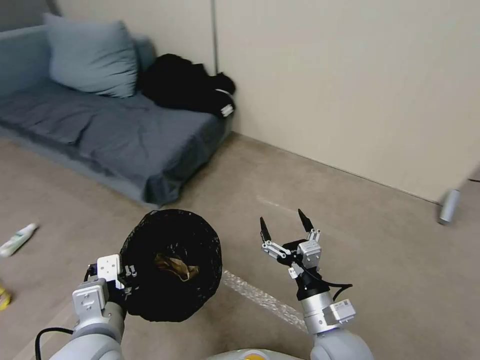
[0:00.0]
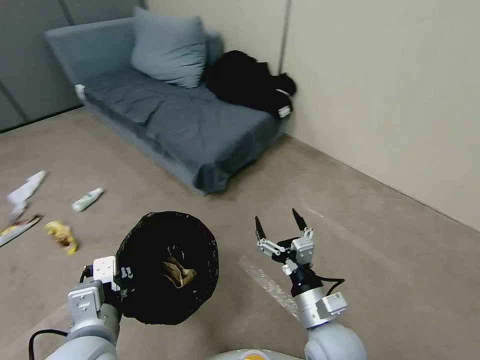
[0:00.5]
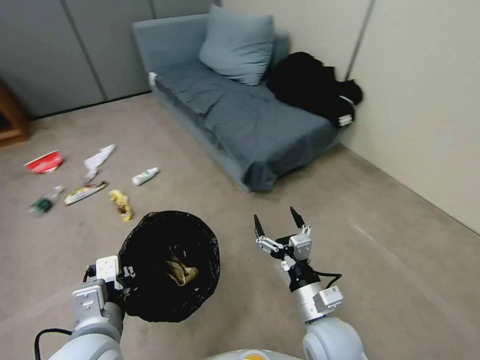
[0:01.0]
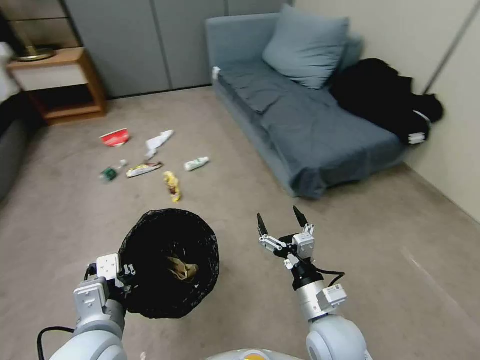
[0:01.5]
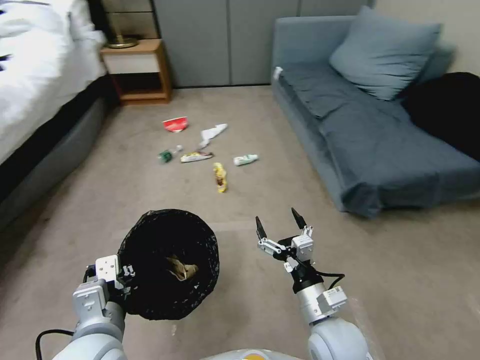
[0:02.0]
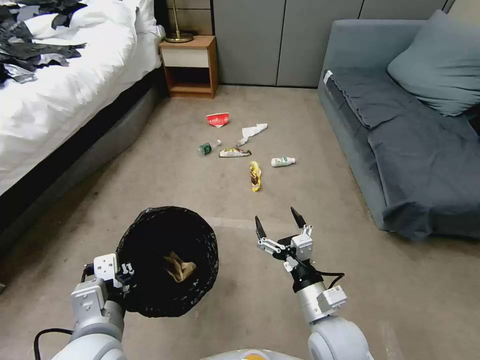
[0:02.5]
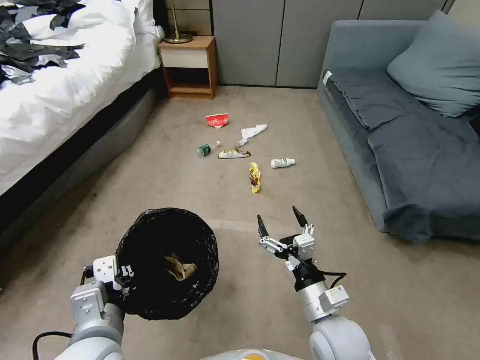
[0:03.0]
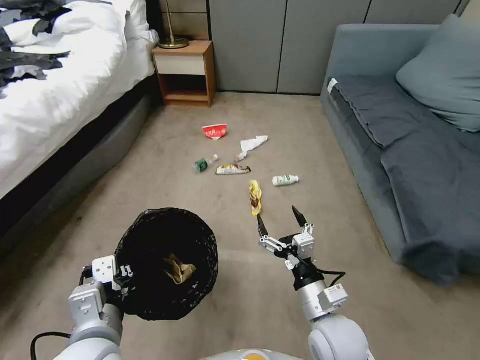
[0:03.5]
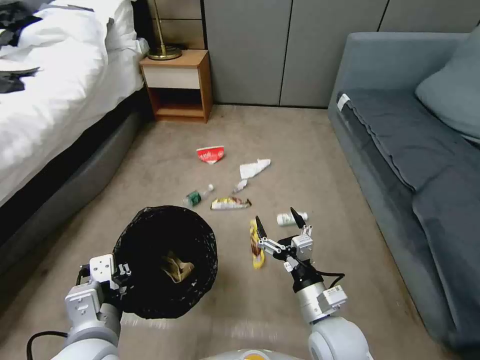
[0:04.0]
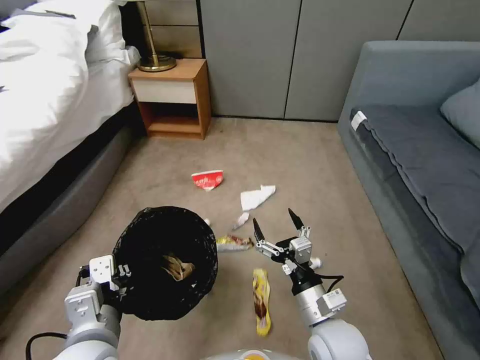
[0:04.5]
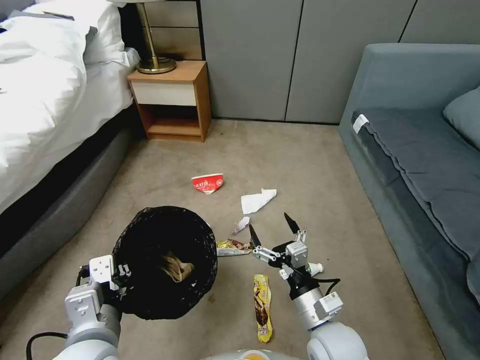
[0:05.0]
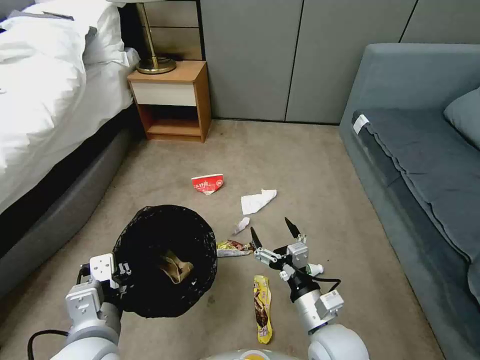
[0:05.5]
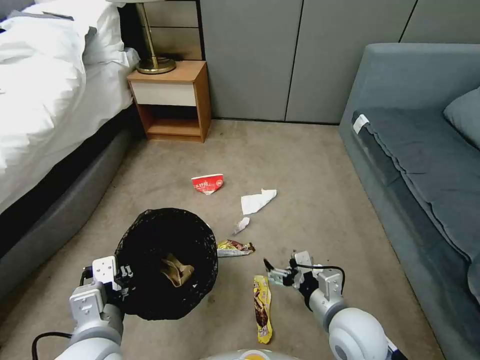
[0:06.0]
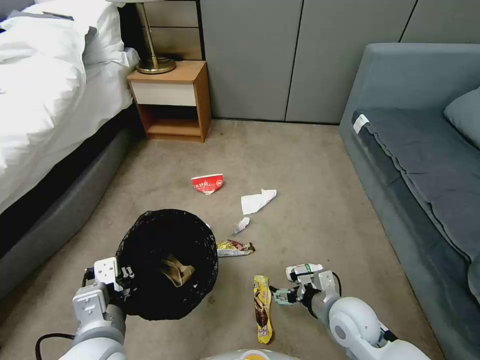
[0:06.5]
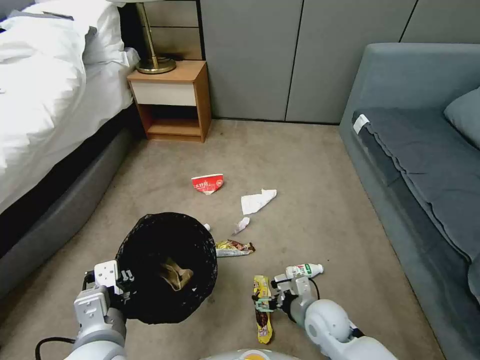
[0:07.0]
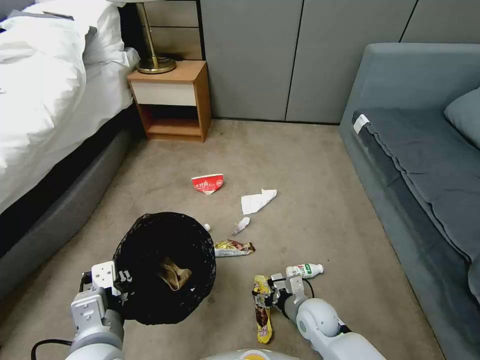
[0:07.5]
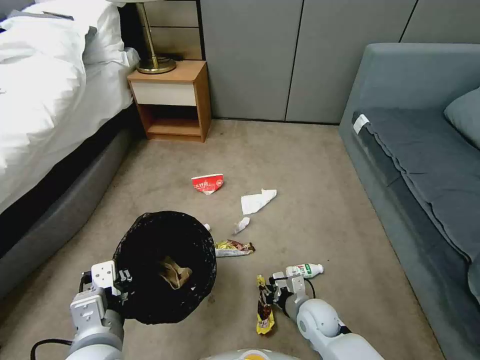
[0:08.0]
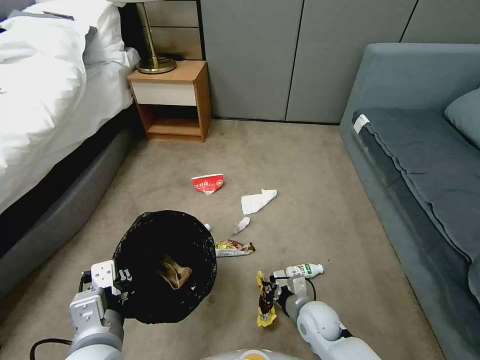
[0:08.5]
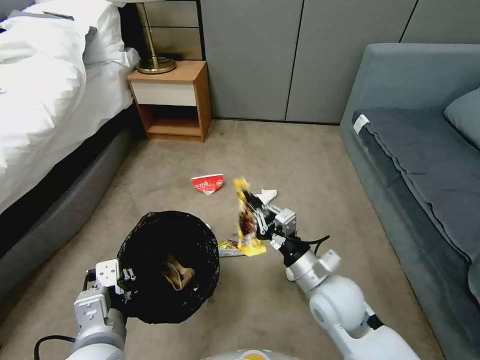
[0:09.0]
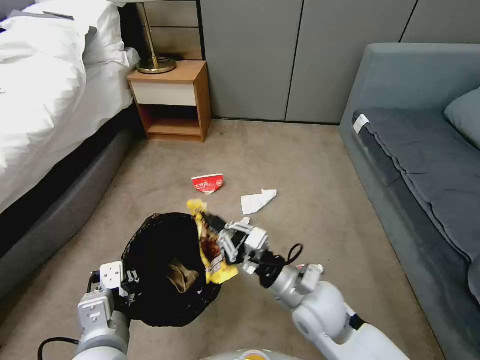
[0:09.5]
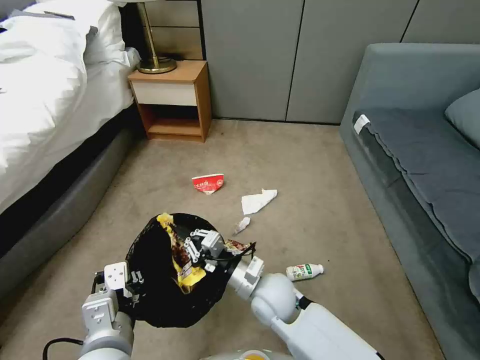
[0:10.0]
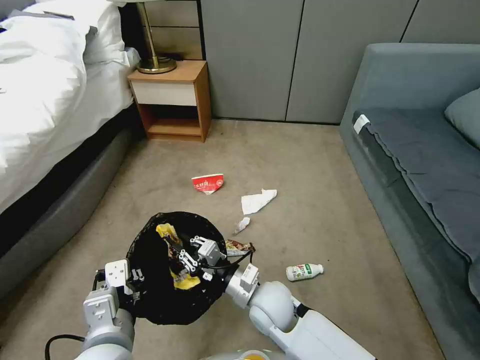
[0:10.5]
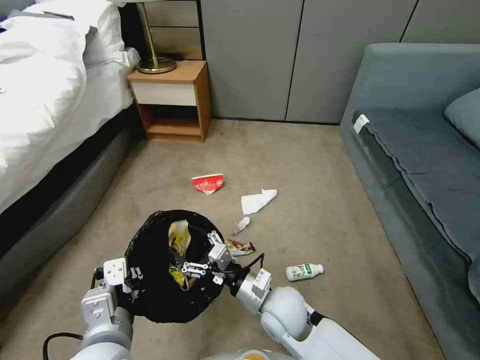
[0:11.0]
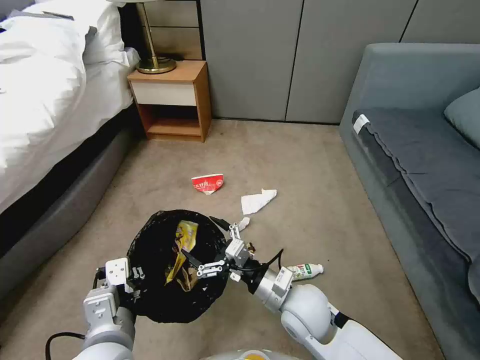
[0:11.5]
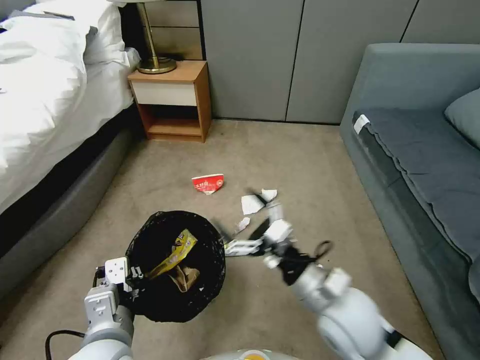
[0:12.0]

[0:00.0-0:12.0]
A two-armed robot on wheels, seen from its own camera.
Task of the whole recording: Pick up the trash bin, then pick up the garbage from the floor and place it into the trash bin.
6.0 to 8.0 s: The right gripper heads downward, covering about 15 cm, and closes up.
8.0 to 10.0 s: The right gripper travels upward and to the left by some 20 cm.
10.0 to 12.0 s: The right gripper is displaced to the right, upward and backward by some 15 cm, and opens its fingers.

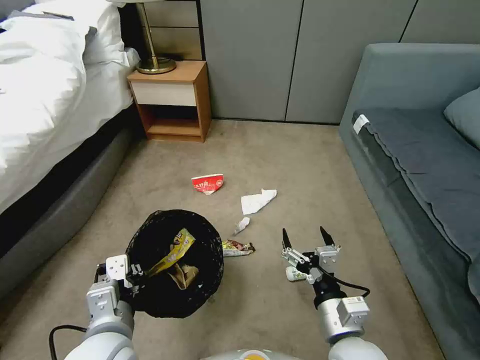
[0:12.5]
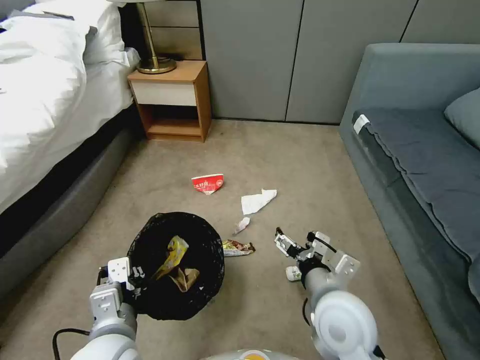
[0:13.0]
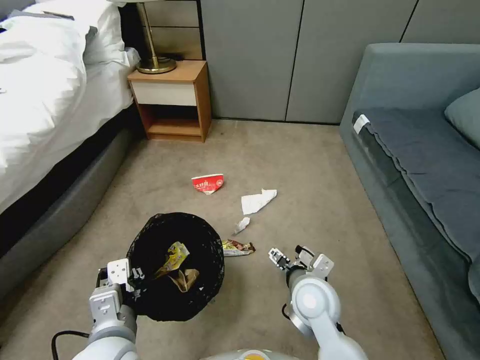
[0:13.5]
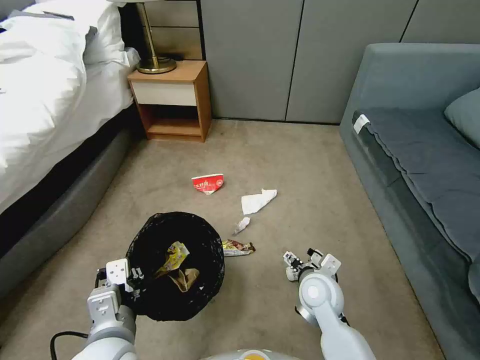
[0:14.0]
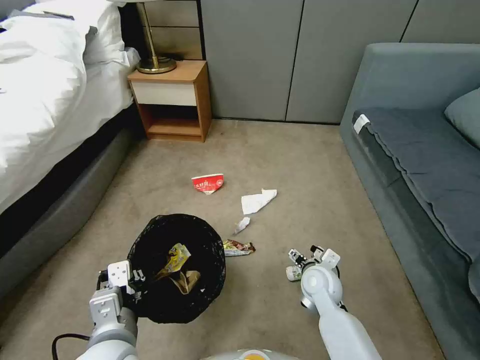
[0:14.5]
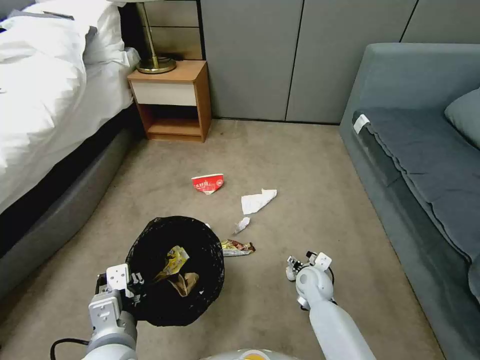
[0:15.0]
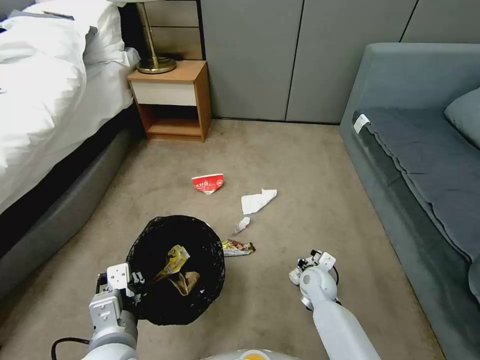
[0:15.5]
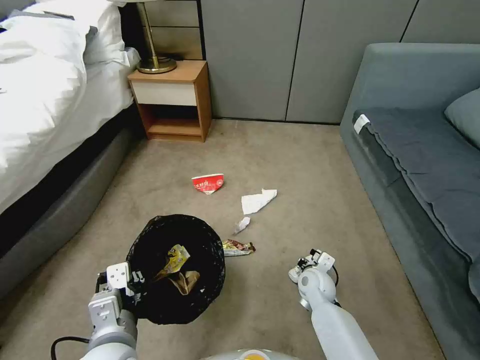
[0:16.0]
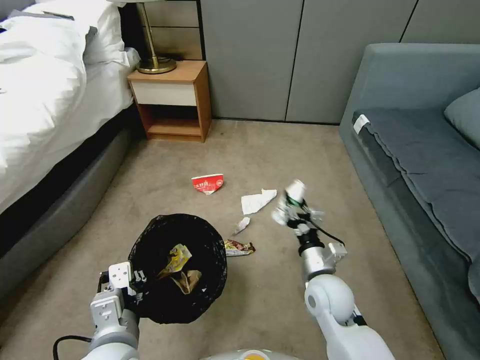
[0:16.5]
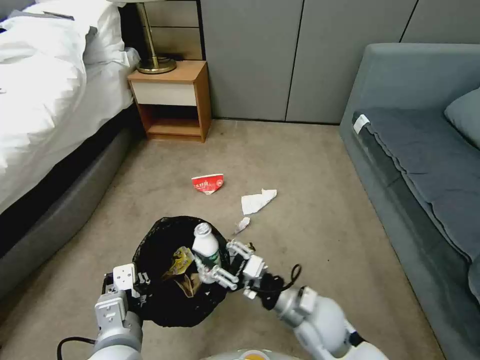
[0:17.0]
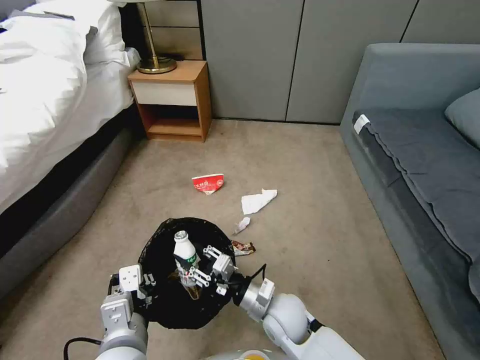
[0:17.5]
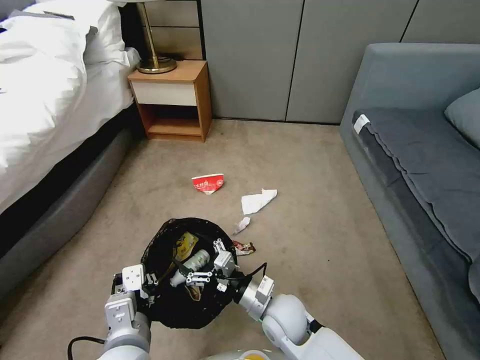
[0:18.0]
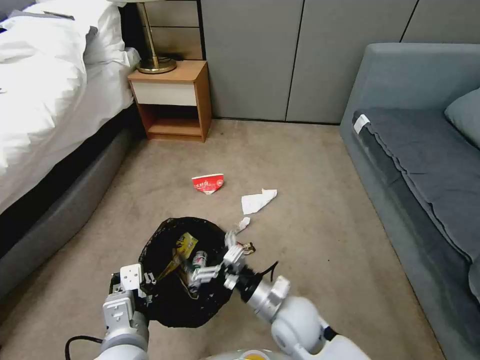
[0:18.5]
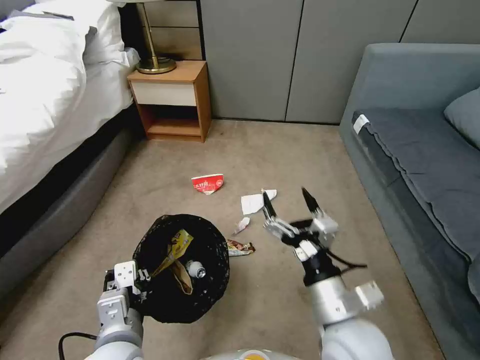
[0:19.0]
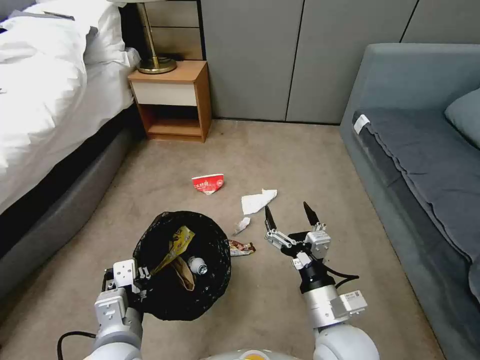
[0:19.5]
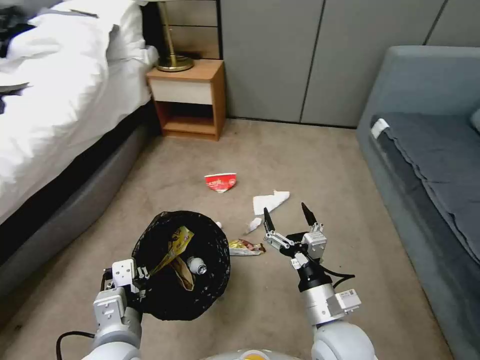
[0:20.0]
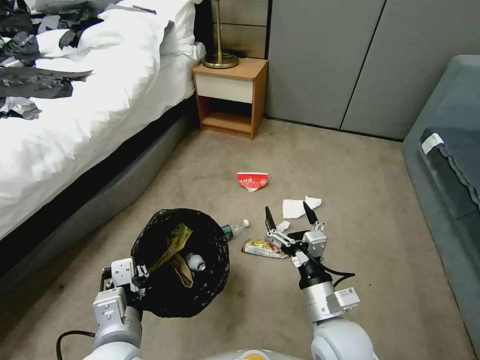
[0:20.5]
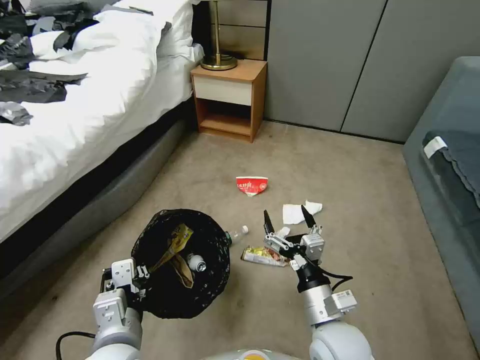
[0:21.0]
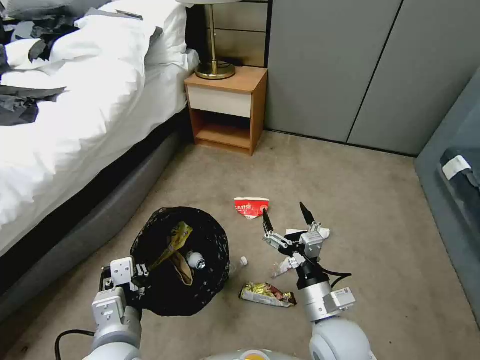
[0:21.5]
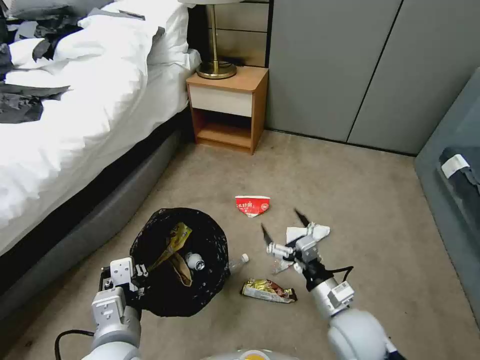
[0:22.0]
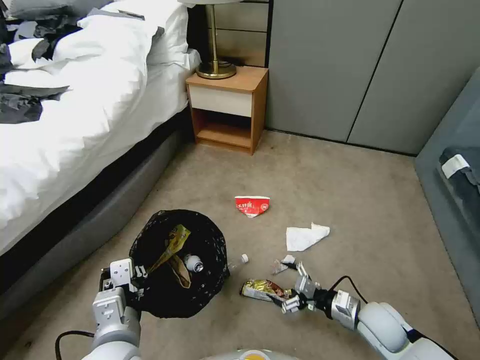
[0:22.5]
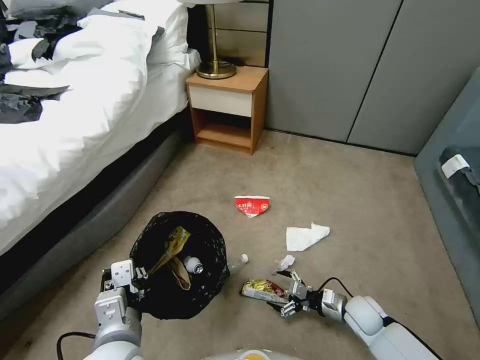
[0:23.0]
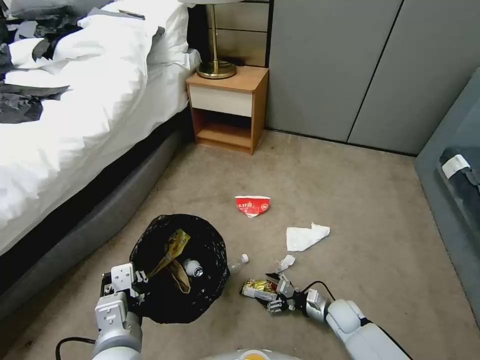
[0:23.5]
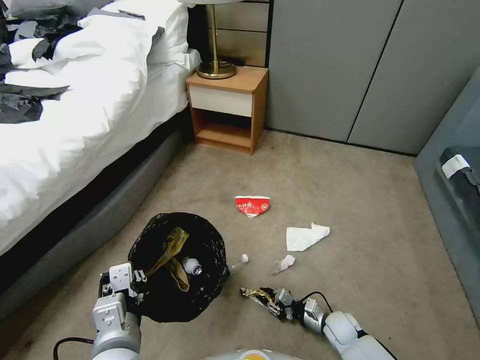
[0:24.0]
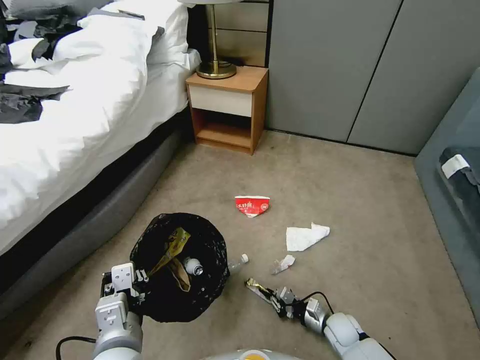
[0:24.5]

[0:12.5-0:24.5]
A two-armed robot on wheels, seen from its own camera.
Task of the whole recording: Pick up the trash bin, then pick up the garbage from the floor and place it into the trash bin.
12.5 to 14.5 s: The right gripper moves forward and downward, roughly 20 cm.
14.5 to 16.5 s: The right gripper shifts about 5 cm upward, and closes up.
16.5 to 18.5 s: The right gripper goes about 10 cm to the left, and opens up.
18.5 to 20.5 s: The right gripper shifts some 10 cm to the right and upward.
20.5 to 22.5 s: The right gripper shifts about 20 cm to the right and downward.
22.5 to 24.5 s: The right gripper is displaced downward by some 15 cm, and closes.

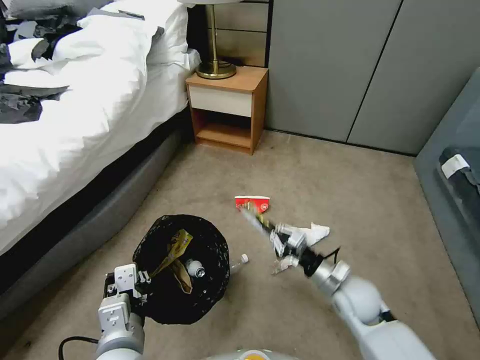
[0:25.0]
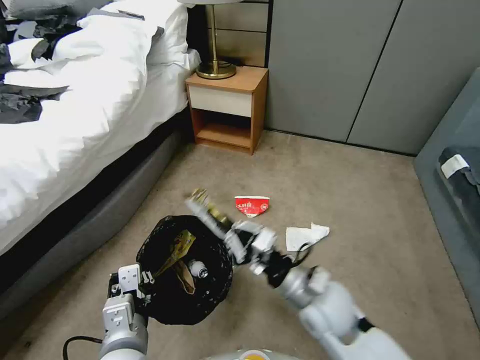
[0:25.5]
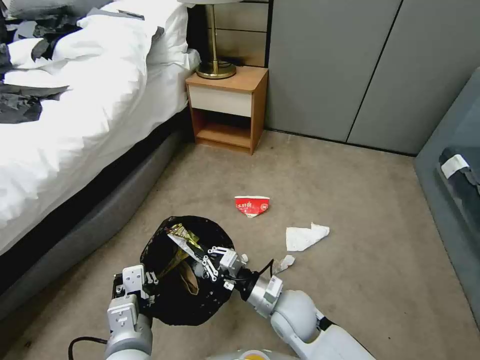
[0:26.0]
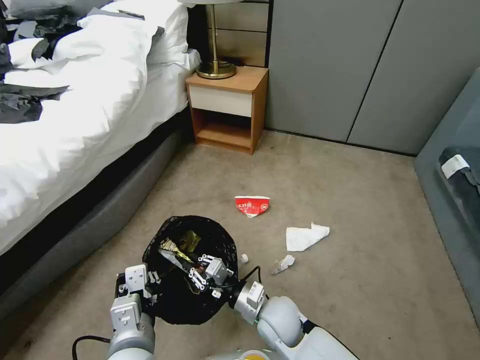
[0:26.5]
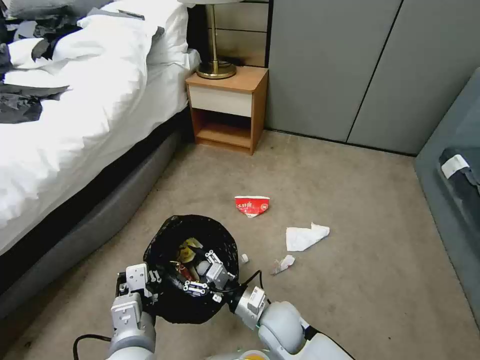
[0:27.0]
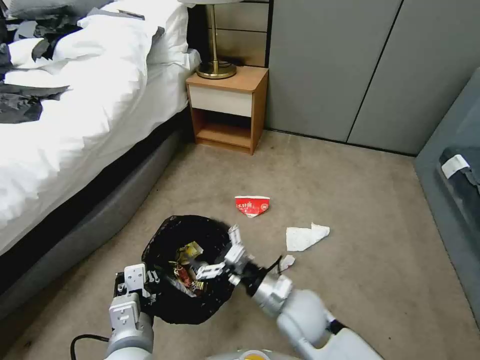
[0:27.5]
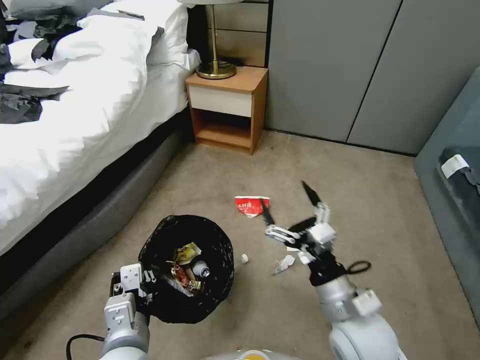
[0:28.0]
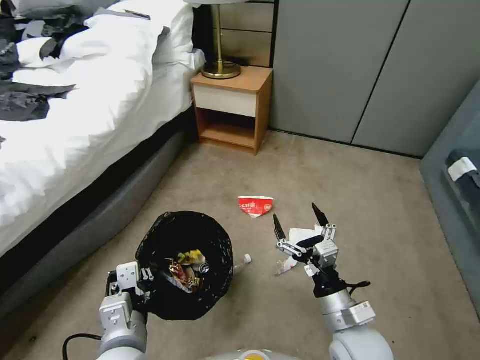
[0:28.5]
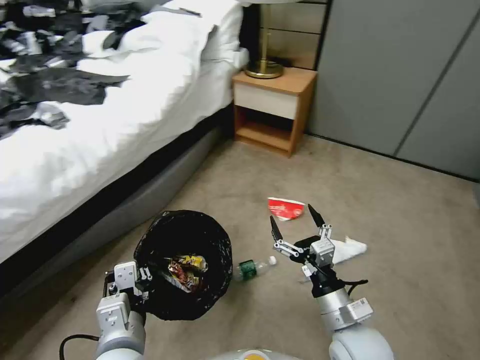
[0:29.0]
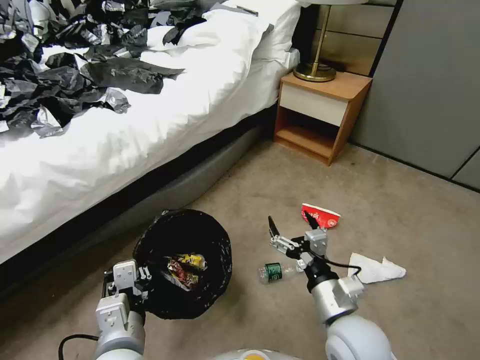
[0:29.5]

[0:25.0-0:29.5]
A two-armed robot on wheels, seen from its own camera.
Task of the whole recording: Pick up the trash bin, then pick up the garbage from the floor and place it into the trash bin.
25.0 to 27.0 s: The right gripper shifts roughly 20 cm to the left, and opens.
27.0 to 29.5 s: The right gripper swings up and down, roughly 15 cm each way, with 2 reversals.
